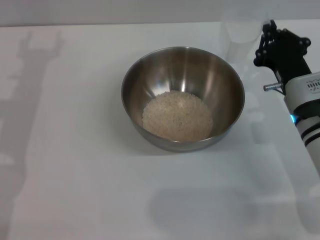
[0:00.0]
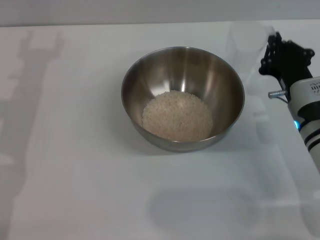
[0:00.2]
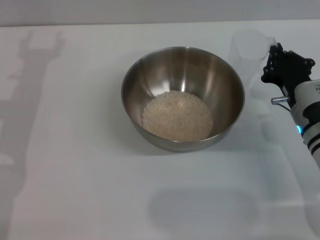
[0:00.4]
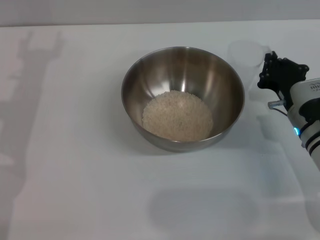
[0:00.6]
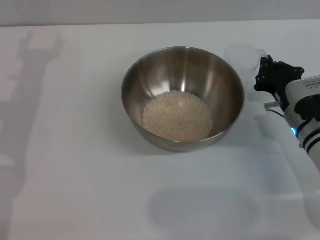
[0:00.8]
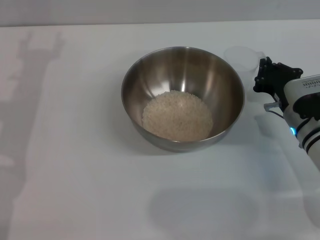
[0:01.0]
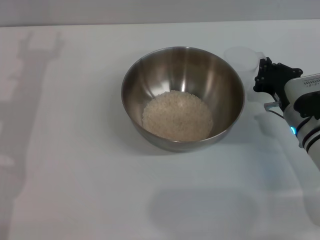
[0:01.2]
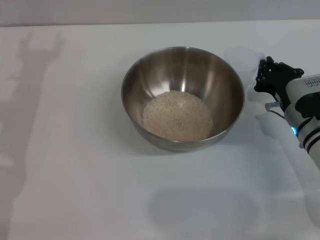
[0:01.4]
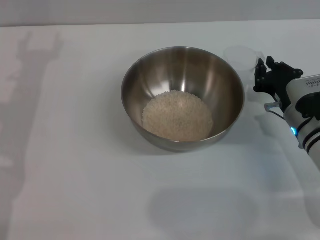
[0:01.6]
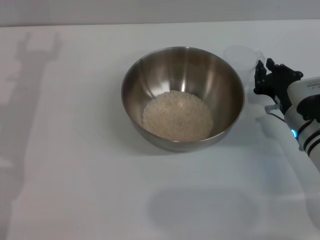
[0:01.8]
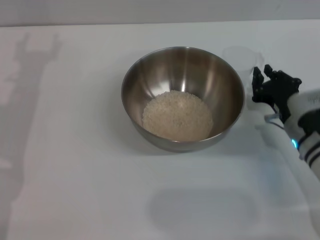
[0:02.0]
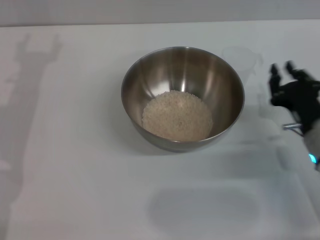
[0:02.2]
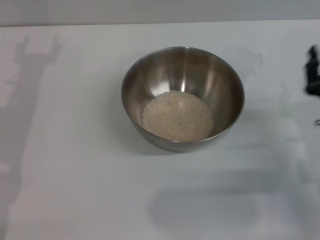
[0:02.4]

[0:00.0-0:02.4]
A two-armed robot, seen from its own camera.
Task of the whole recording: Place the bowl in the middle of the table with one hand and pour the rice from the grain cup into it with the other hand.
Step, 0:00.0 to 0:02.0: Place the cup on the table with the right gripper.
0:00.0 to 0:01.2: The grippers make only small movements.
0:01.2 to 0:02.4: The right gripper shifts roughly 10 cm backward.
